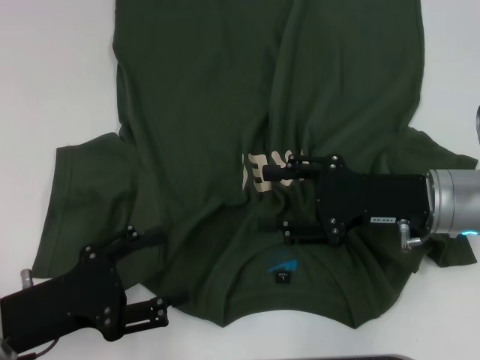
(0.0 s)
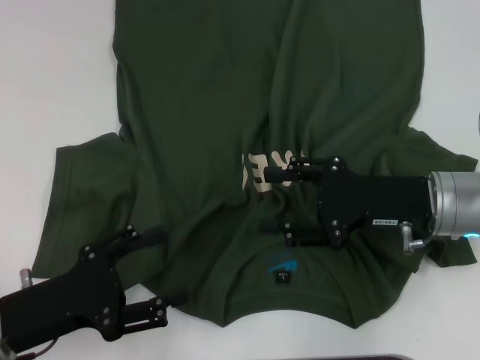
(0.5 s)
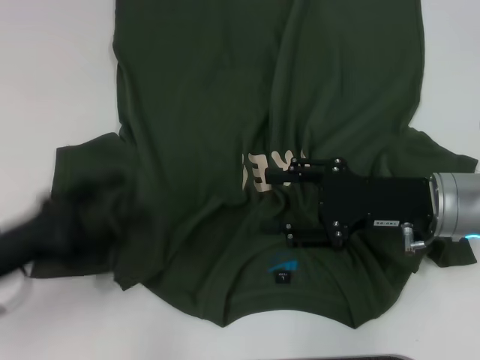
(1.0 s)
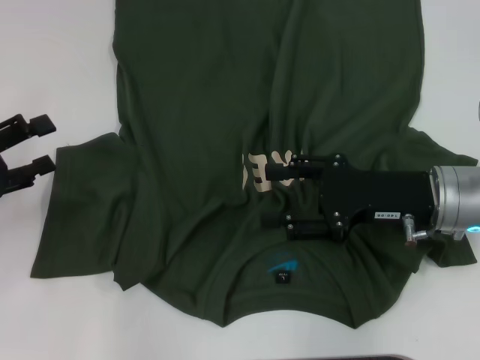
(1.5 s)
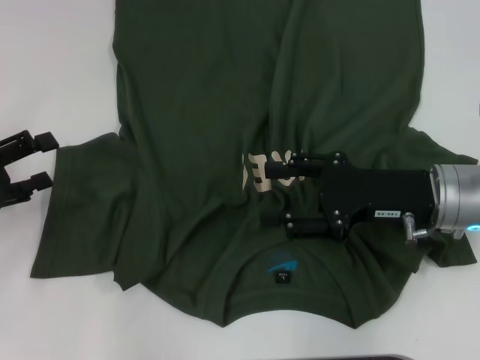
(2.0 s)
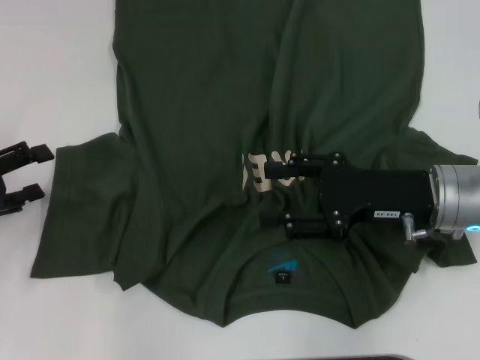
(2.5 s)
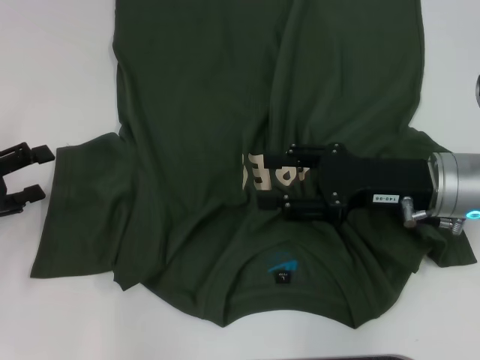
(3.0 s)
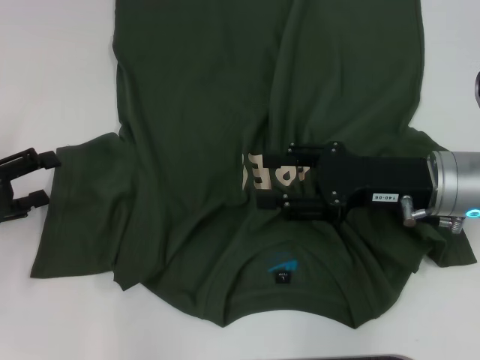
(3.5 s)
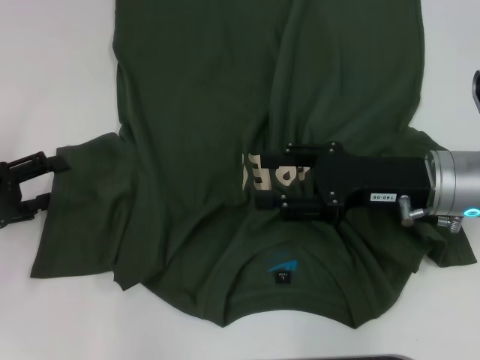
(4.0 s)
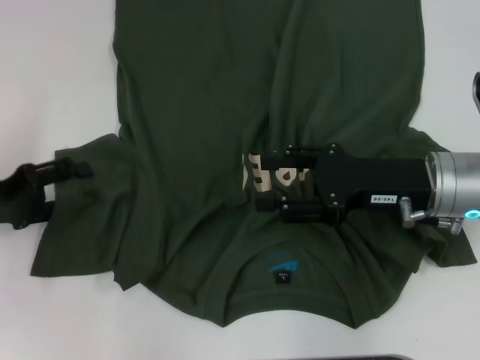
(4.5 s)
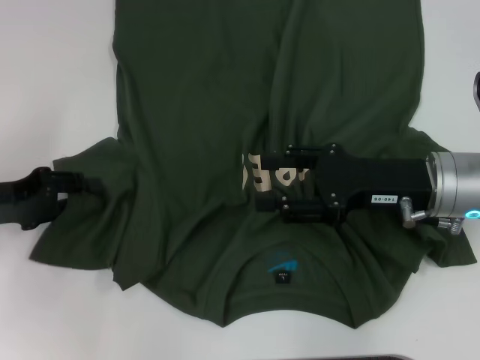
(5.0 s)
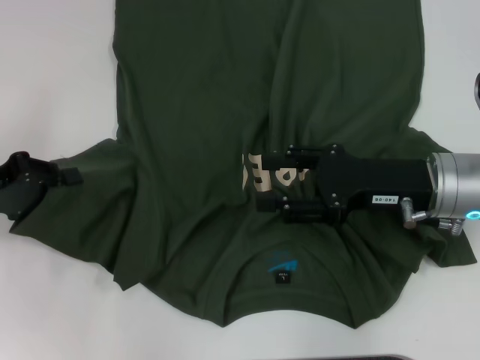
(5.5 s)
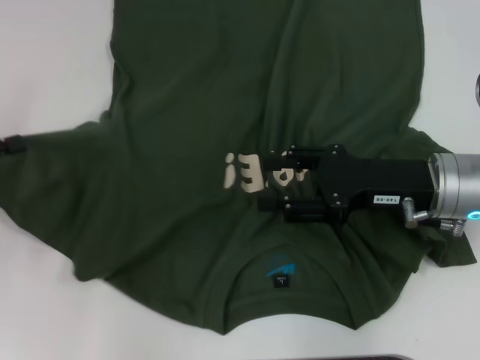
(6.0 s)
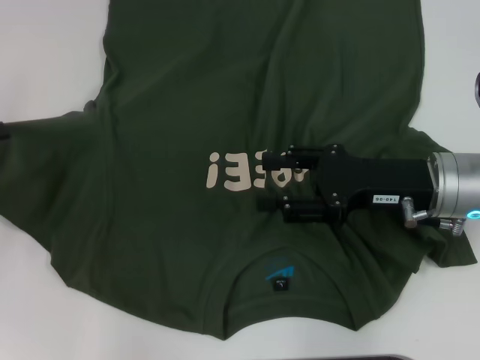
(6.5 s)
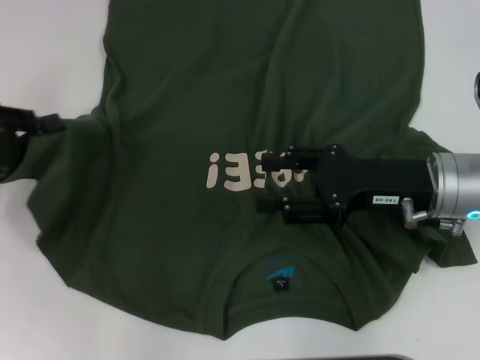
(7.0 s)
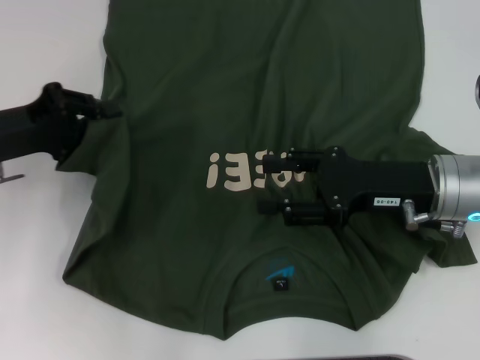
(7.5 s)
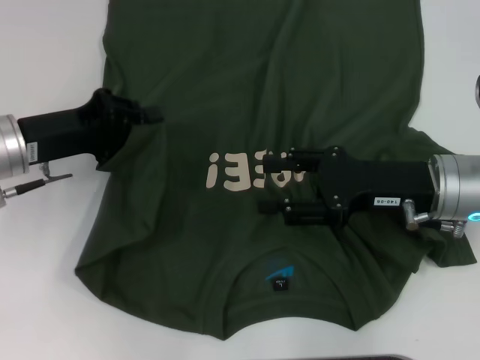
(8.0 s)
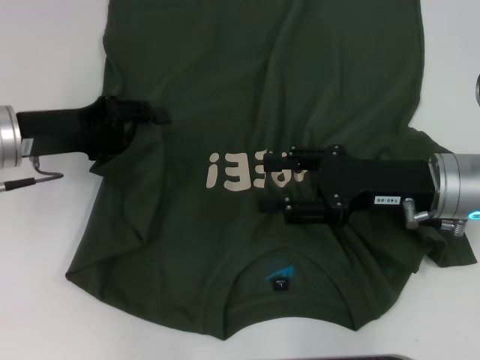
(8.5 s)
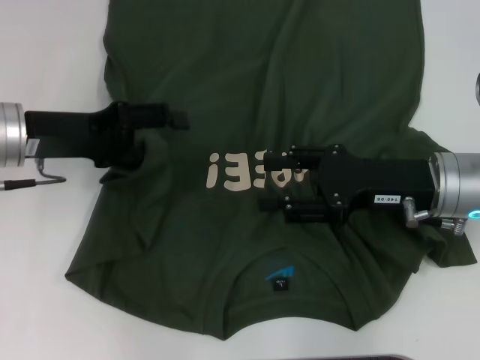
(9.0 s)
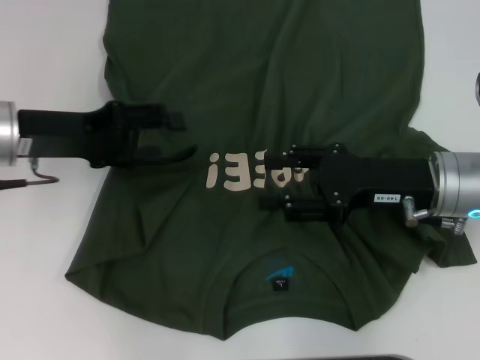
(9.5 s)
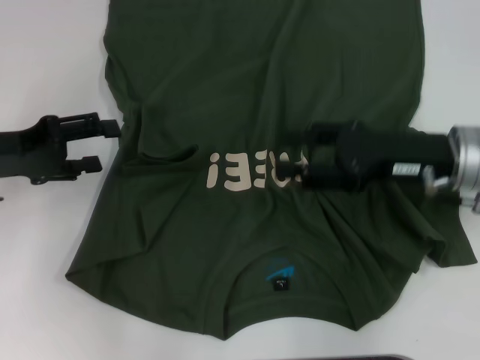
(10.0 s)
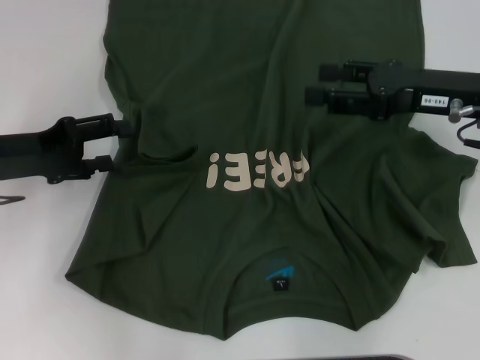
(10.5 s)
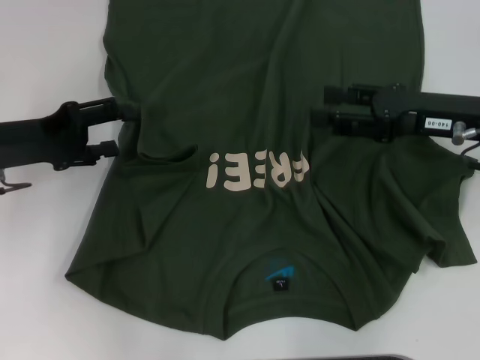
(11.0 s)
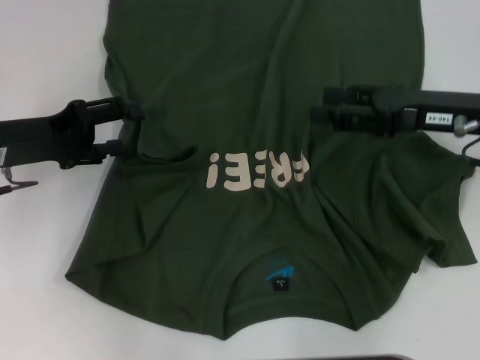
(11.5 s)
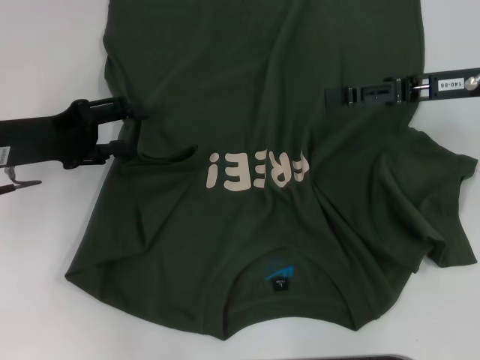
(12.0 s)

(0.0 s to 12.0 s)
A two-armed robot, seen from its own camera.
0.0 s - 2.0 s: The left gripper heads to the left and forward, covering approximately 15 cm.
2.0 s - 4.0 s: The grippers make only small movements.
4.0 s - 6.0 s: The left gripper closes up.
6.0 s - 8.0 s: The left gripper is displaced to the right and forward by roughly 15 cm.
8.0 s - 10.0 s: The left gripper goes some 5 cm to the left, and opens.
10.0 s - 12.0 s: The right gripper moves forward, some 5 cm.

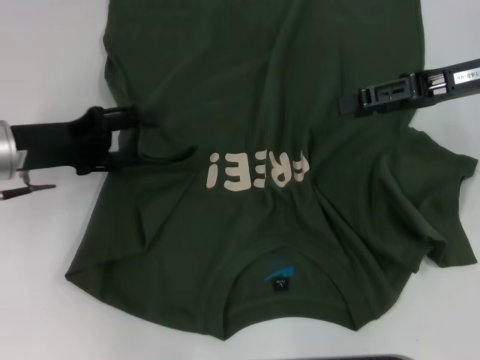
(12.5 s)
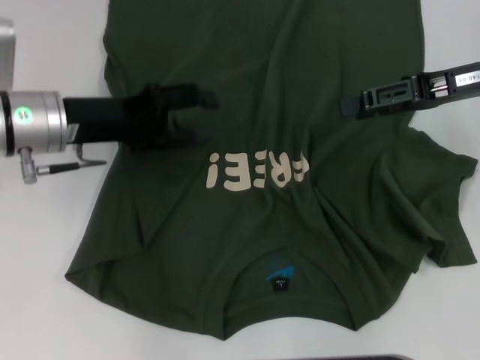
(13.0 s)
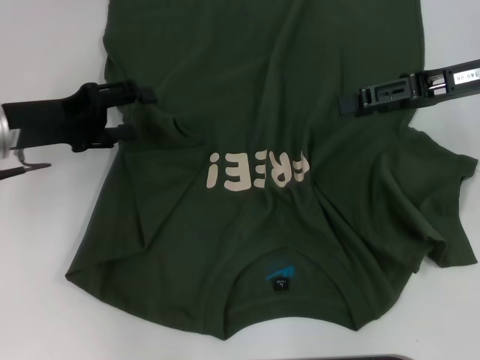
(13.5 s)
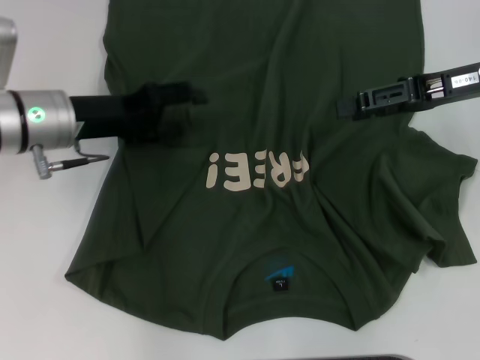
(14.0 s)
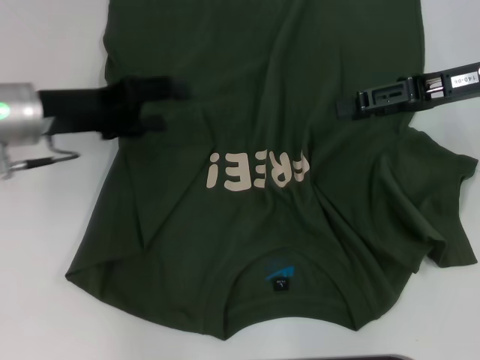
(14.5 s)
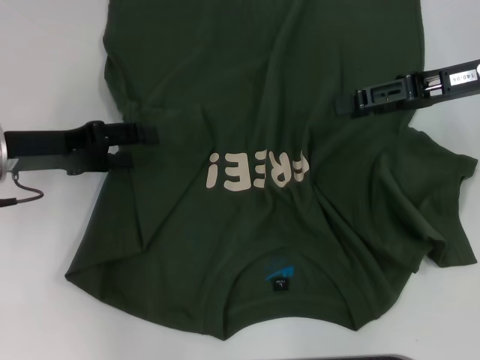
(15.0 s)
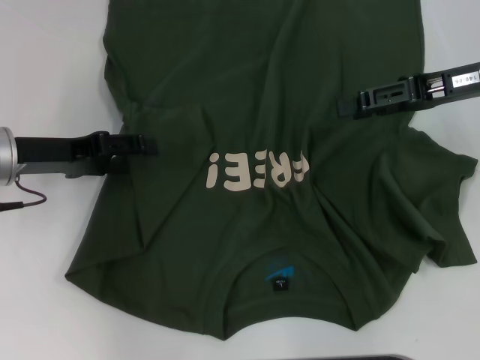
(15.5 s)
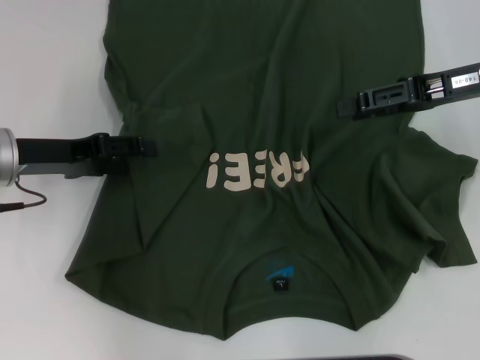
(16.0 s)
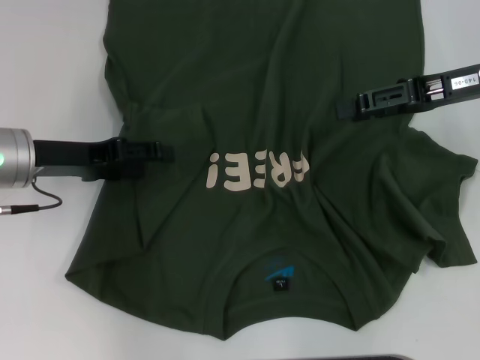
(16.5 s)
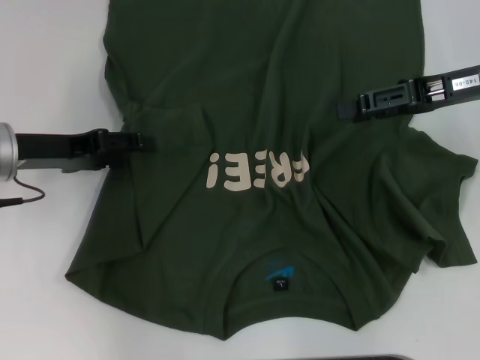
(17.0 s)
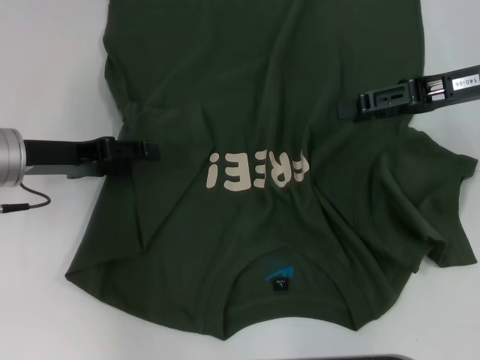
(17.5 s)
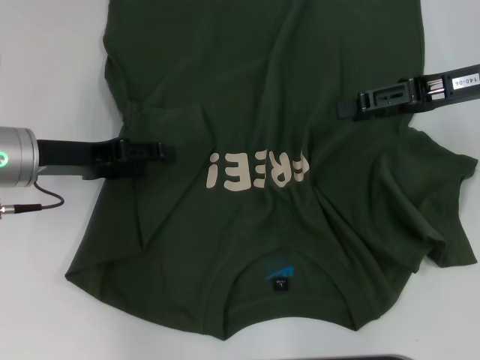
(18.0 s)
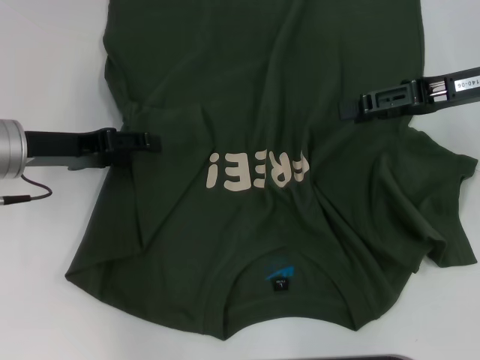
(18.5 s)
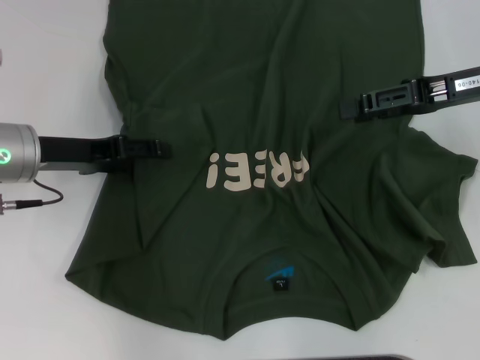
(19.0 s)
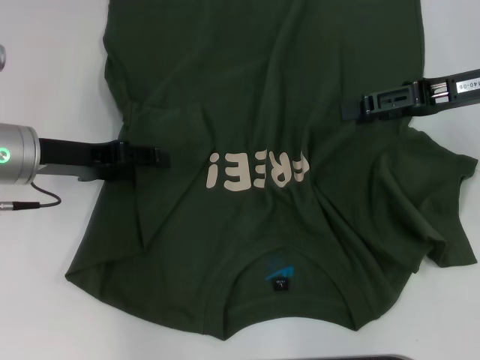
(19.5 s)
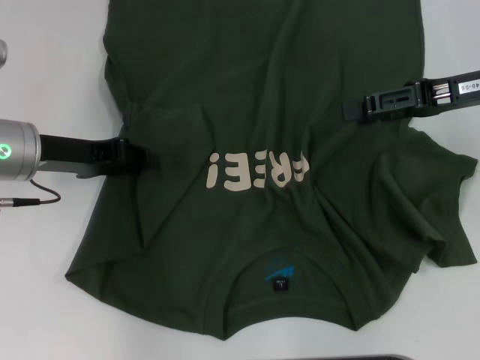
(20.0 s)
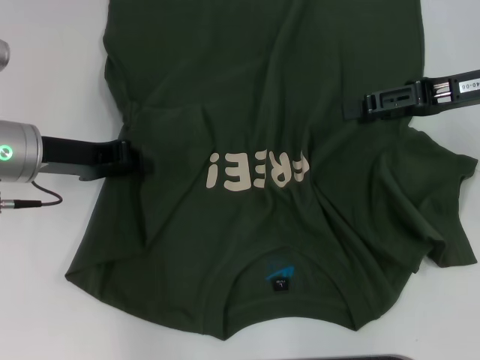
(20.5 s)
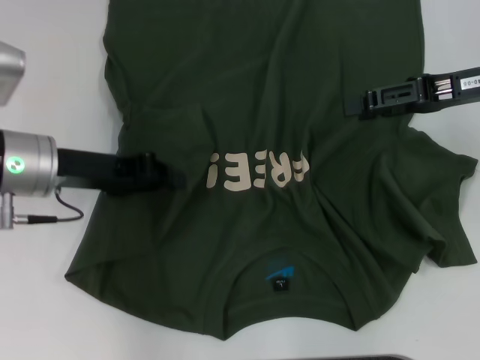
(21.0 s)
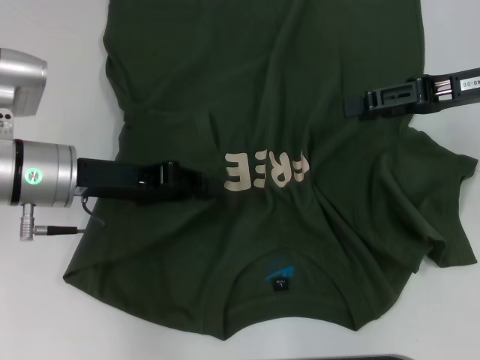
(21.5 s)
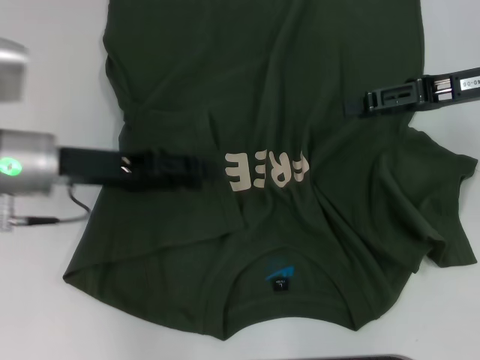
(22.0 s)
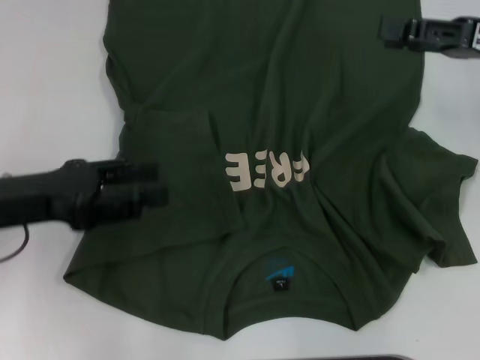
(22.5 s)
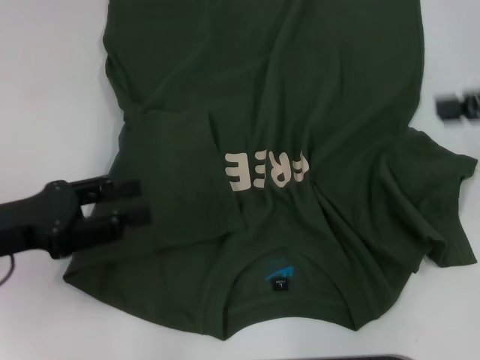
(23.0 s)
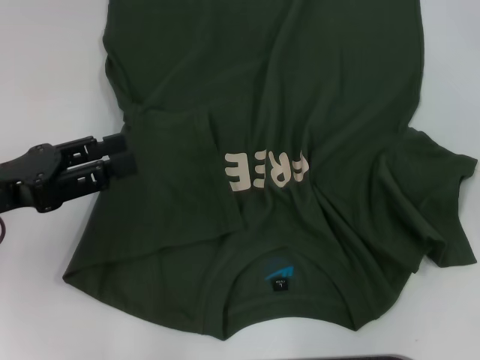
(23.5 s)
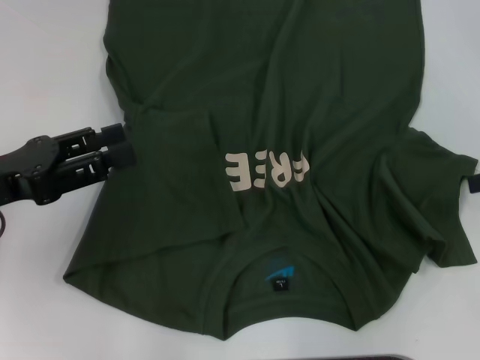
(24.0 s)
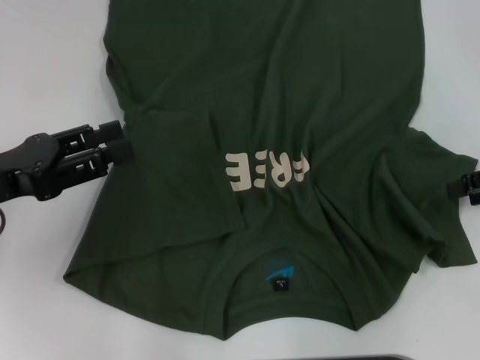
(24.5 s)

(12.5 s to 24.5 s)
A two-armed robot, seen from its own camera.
Step, 12.5 s - 22.0 s: Fold the bottom left sleeve with your left hand.
12.5 s - 14.5 s: The left gripper swings left and right, some 5 cm each way, with 2 reversals.
14.5 s - 18.5 s: The grippers make only small movements.
18.5 s - 20.5 s: The left gripper closes up.
20.5 s - 22.5 s: The left gripper travels backward by some 5 cm, and opens its fingers.
22.5 s - 24.5 s: The right gripper goes some 5 cm to the right.

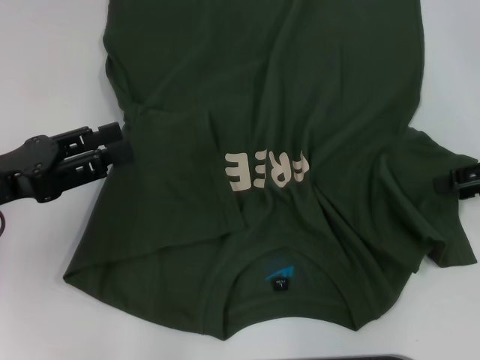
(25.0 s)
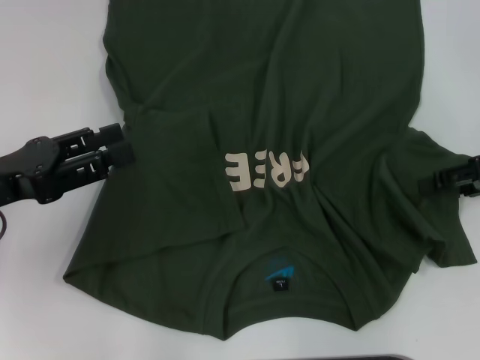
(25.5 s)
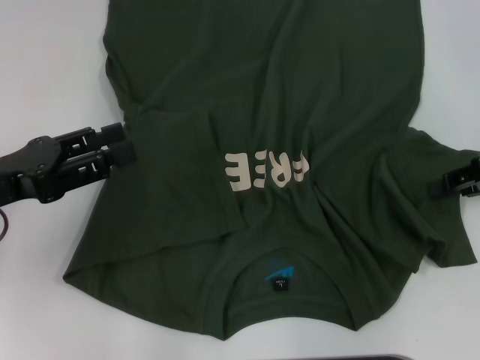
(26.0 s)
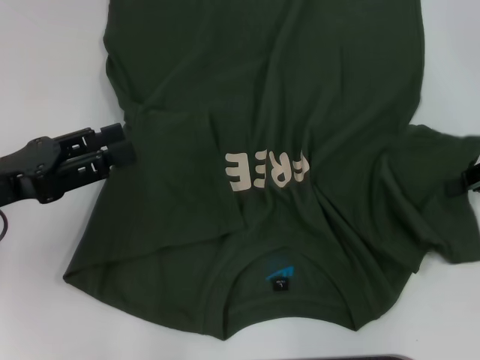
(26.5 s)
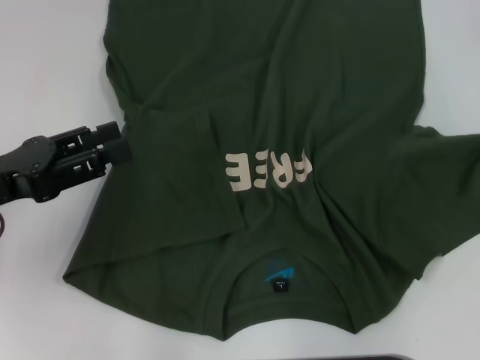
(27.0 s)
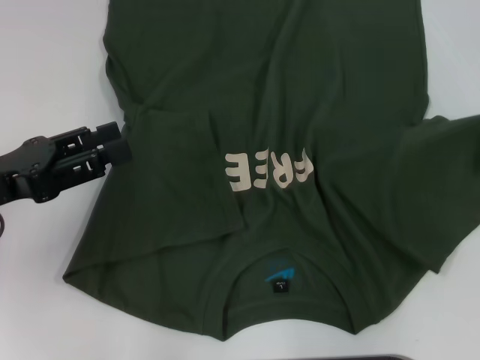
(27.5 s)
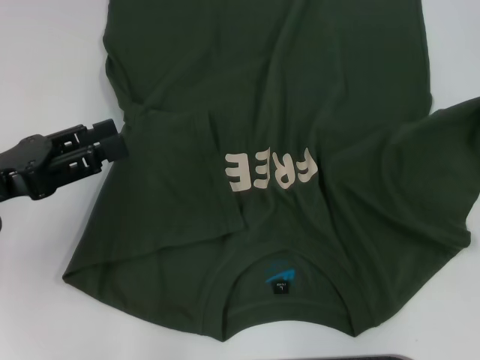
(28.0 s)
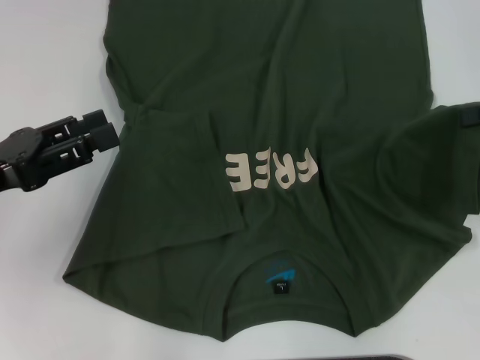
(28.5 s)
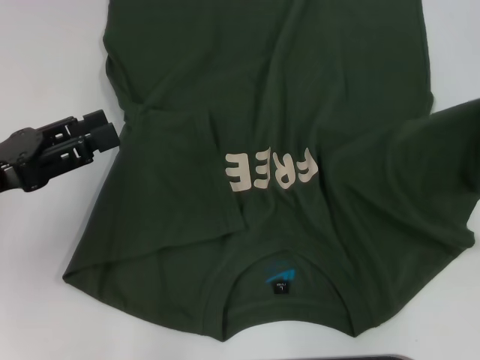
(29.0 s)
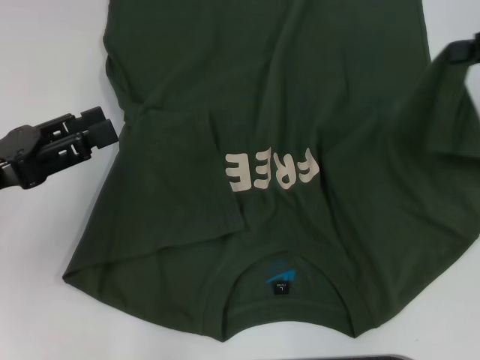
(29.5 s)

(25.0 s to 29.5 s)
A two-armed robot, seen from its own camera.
25.0 s - 27.0 s: The right gripper closes.
27.0 s - 29.5 s: The right gripper goes approximately 5 cm upward.
